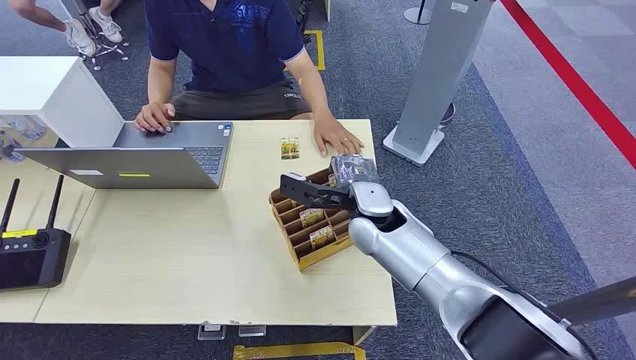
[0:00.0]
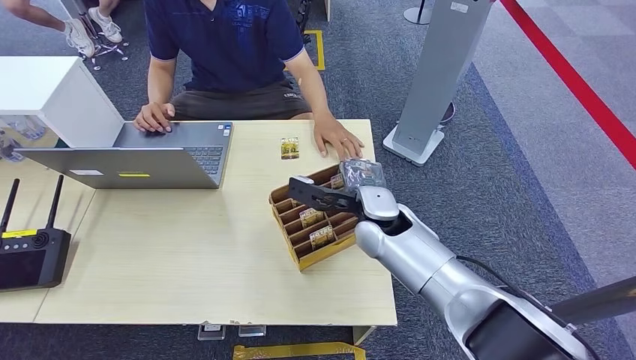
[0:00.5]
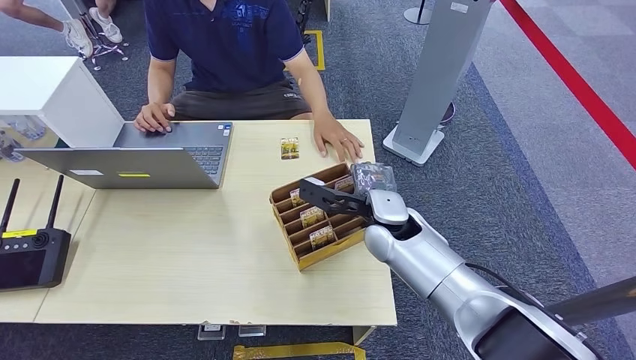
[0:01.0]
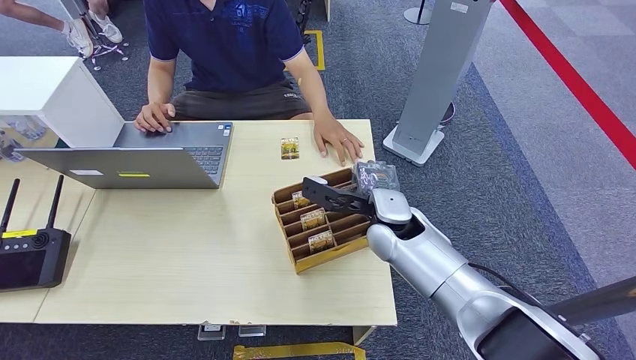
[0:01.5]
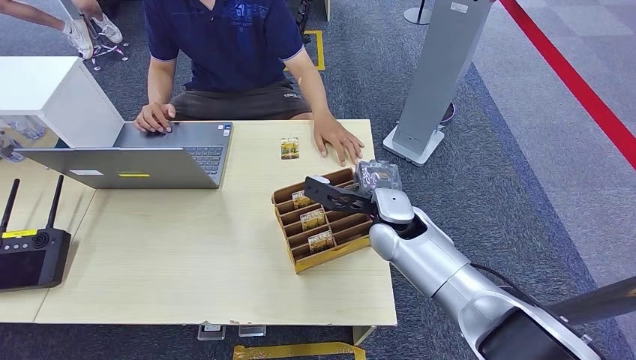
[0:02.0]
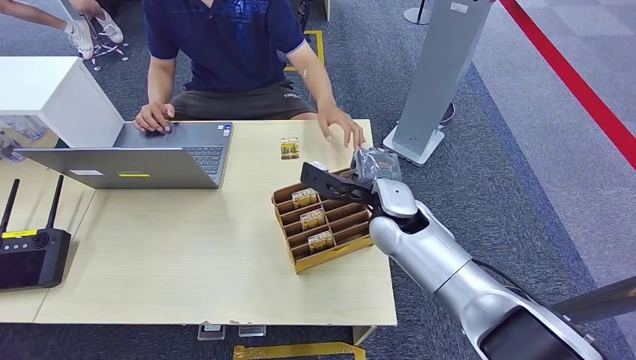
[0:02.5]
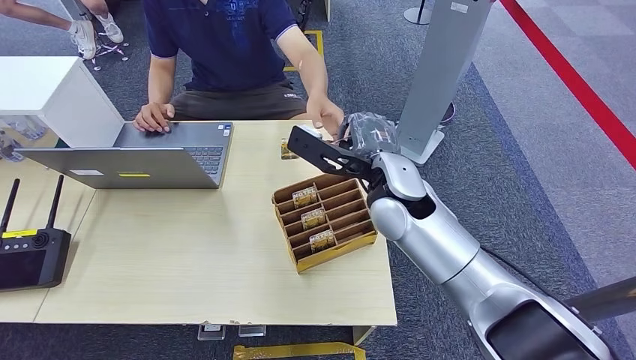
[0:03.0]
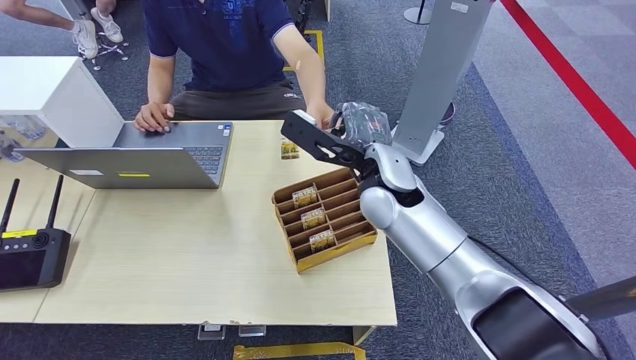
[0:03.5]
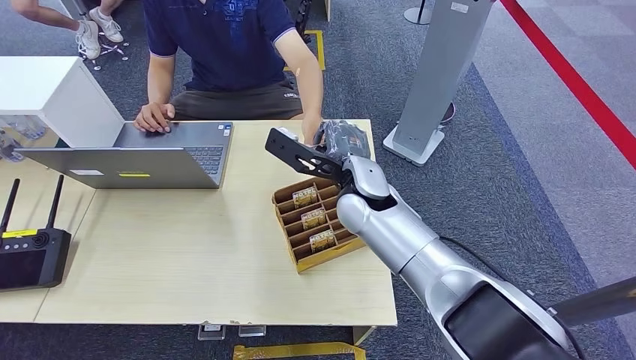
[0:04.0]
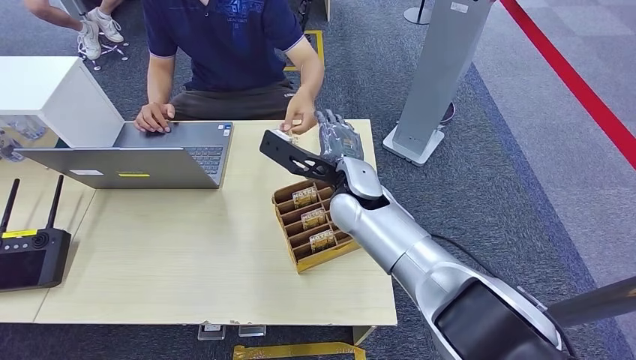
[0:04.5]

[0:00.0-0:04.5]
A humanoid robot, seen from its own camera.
Step, 0:00.0 to 0:01.5: Pick up the key card from the card box.
Step, 0:03.5 to 0:04.5: Hand the key card to the target.
0:02.0 to 0:04.5: The right hand shifts about 10 cm to the left and upward.

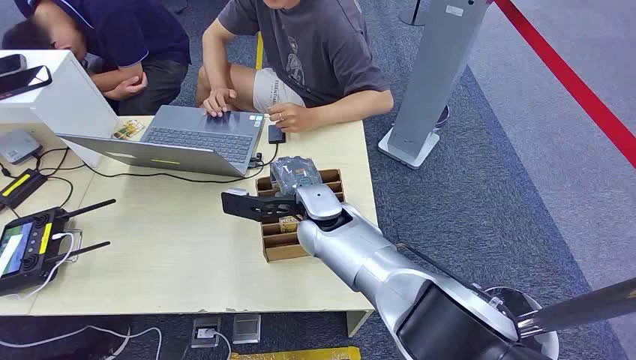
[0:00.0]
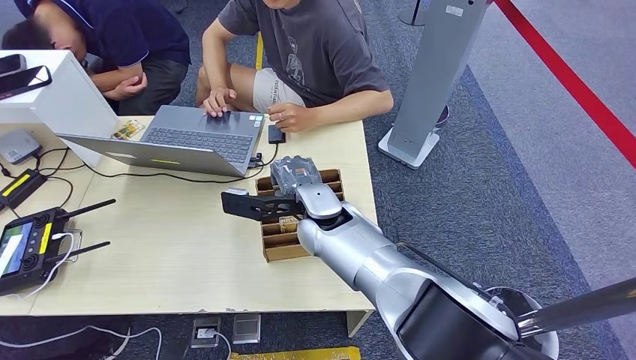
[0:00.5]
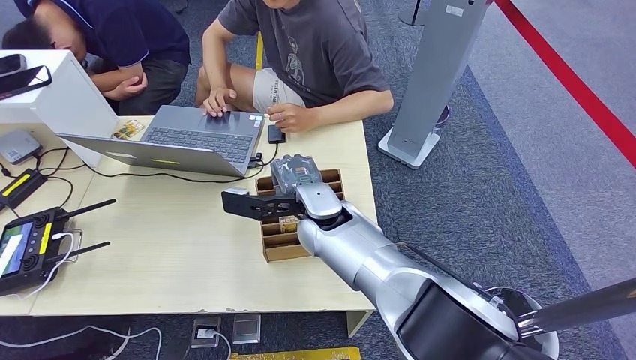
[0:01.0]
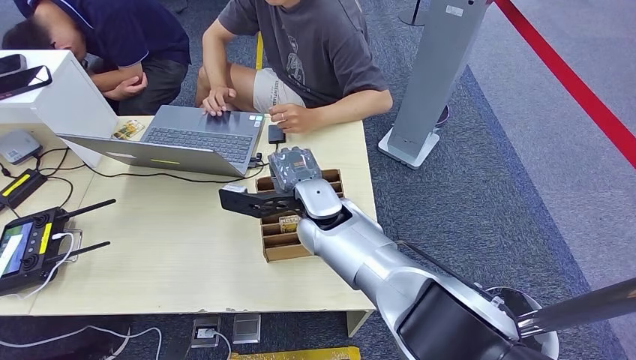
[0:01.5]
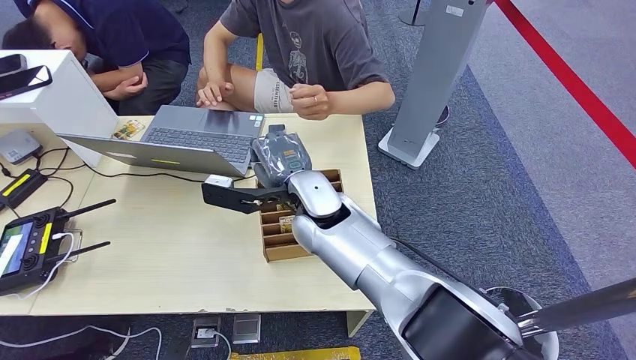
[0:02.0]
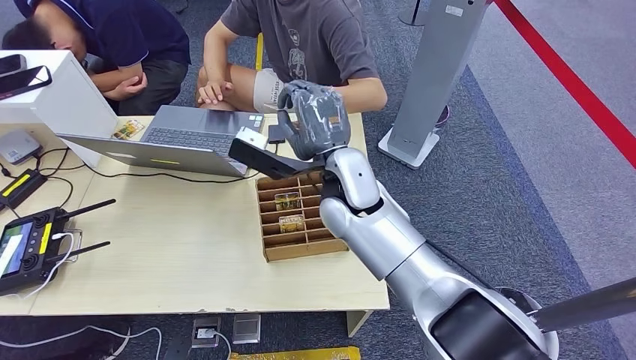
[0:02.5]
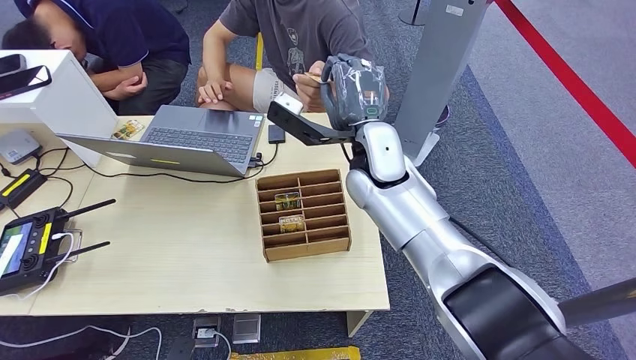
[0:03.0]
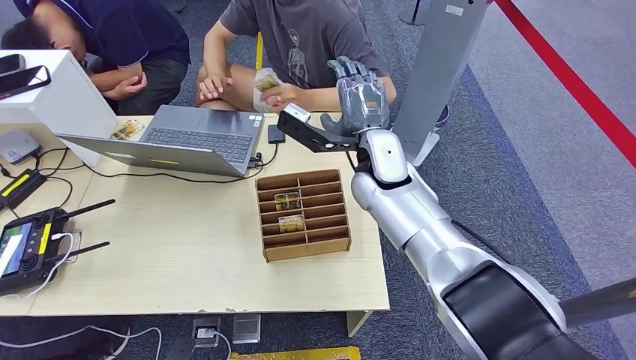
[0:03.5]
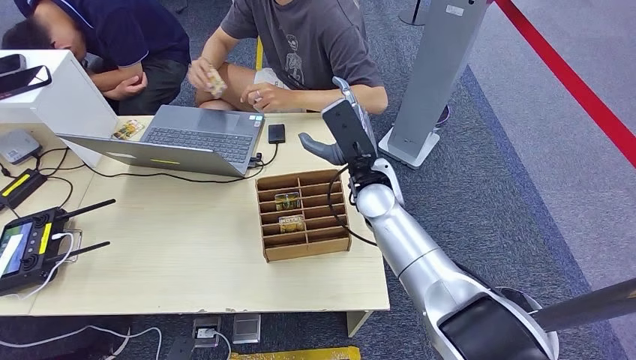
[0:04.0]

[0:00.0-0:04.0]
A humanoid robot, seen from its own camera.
Step, 0:00.0 to 0:01.5: Pick up the key card from the card box.
Step, 0:02.5 to 0:04.0: Hand the key card to the target.
0:02.0 to 0:04.0: The right hand moves to the right, some 10 cm.

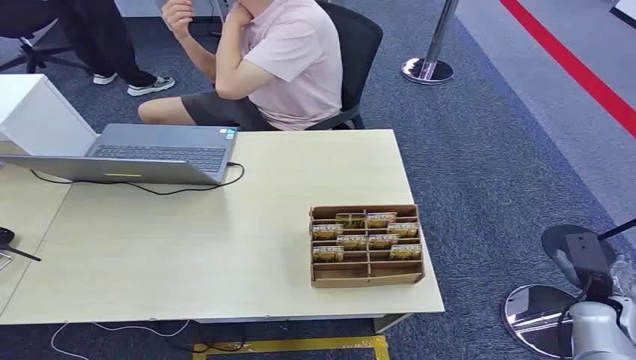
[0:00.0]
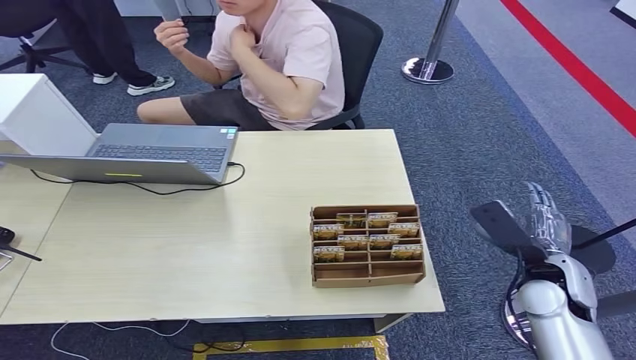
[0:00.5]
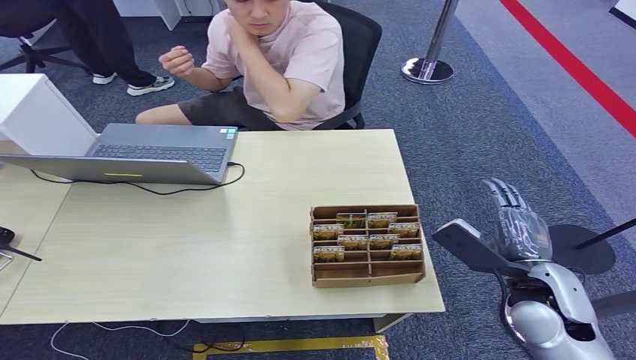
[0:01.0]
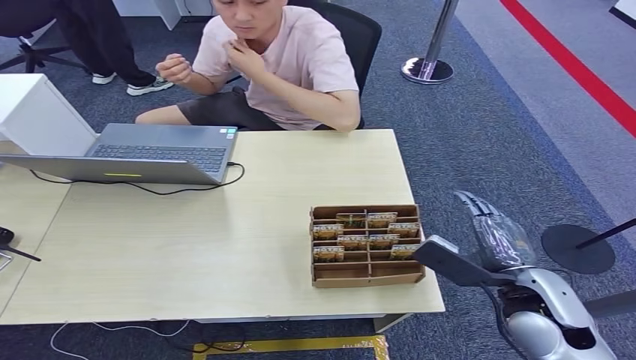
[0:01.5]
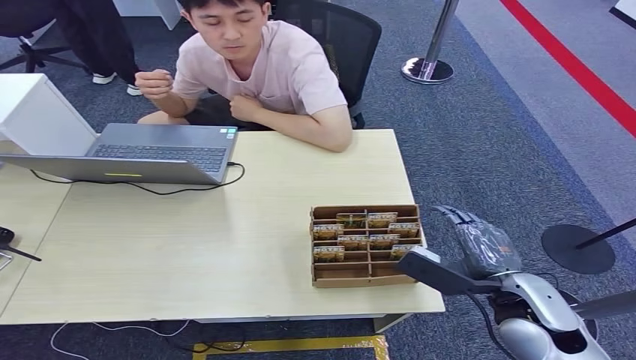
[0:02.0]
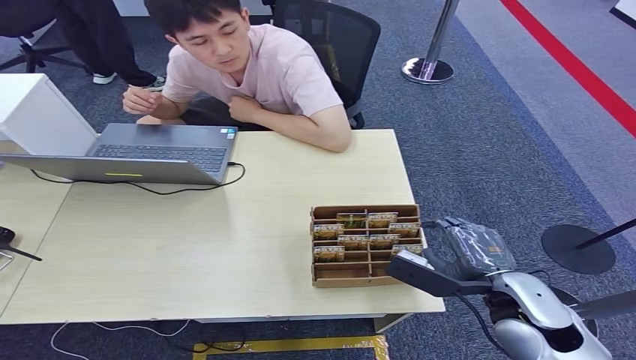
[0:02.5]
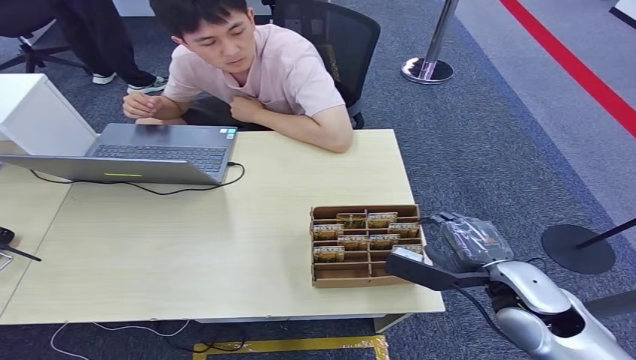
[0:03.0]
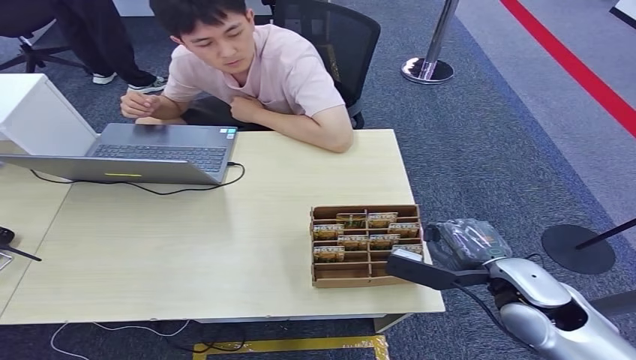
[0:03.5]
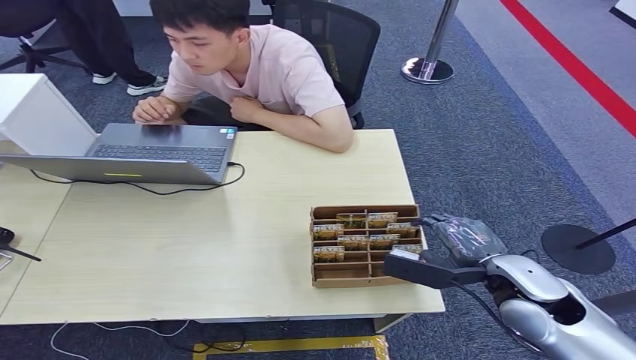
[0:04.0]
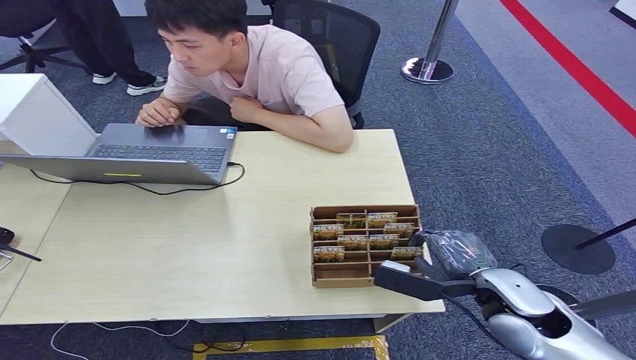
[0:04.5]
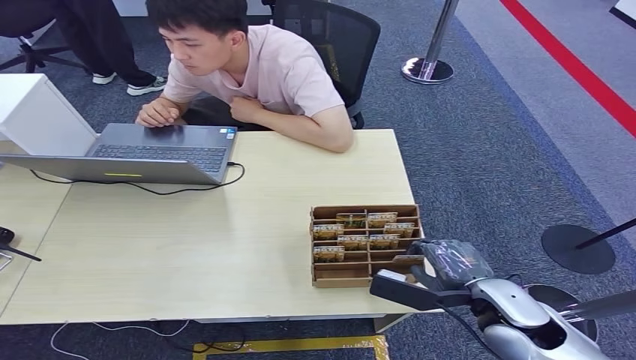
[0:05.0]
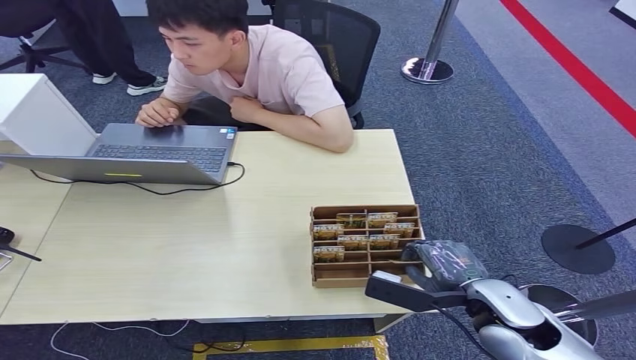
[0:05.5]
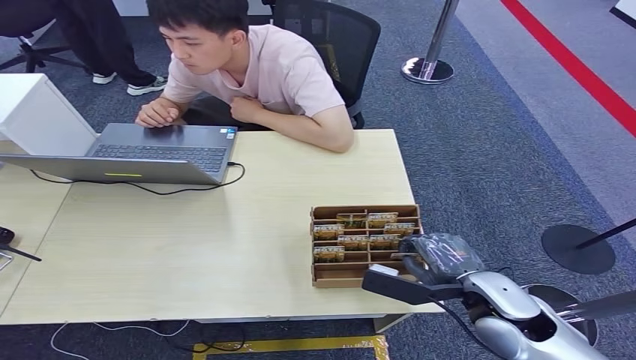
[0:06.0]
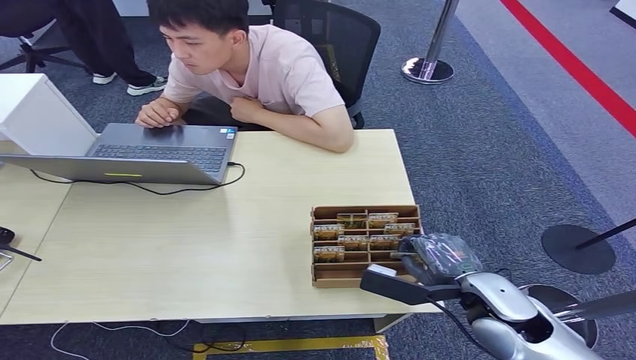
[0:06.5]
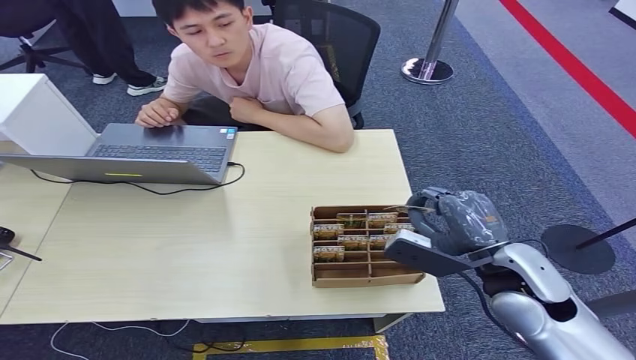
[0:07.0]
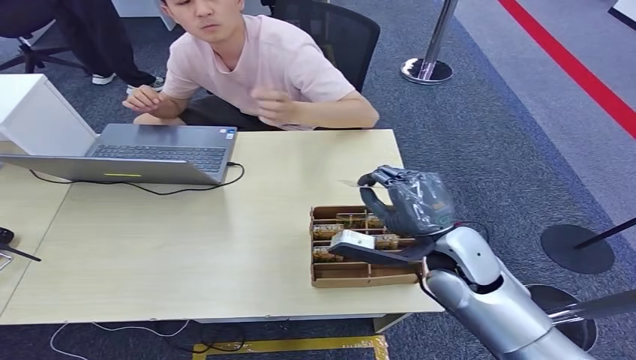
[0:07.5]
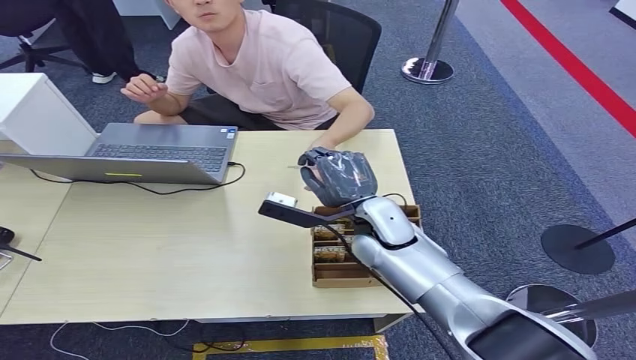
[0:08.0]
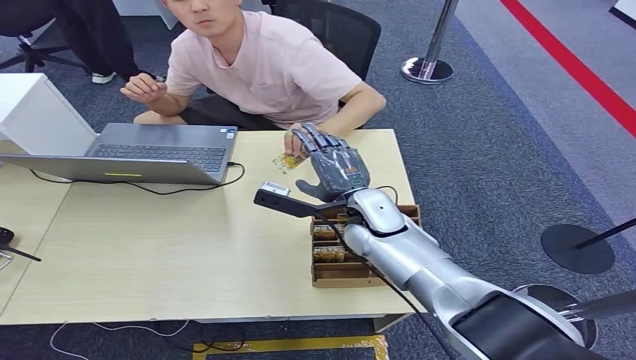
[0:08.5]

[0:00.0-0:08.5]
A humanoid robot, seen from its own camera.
Step, 0:00.0 to 0:06.0: Pick up the key card from the card box.
Step, 0:06.5 to 0:08.5: Hand the key card to the target.
0:04.0 to 0:06.5: The hands make only small movements.
0:06.5 to 0:08.5: The right hand shifts about 25 cm forward and to the left.
